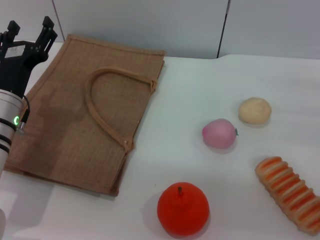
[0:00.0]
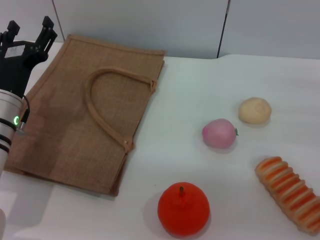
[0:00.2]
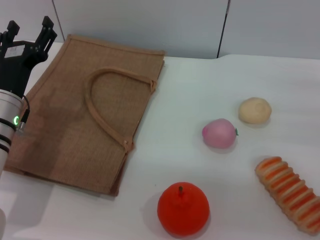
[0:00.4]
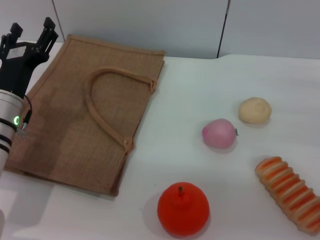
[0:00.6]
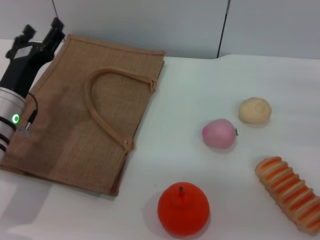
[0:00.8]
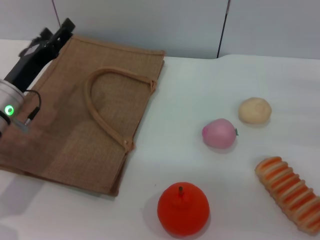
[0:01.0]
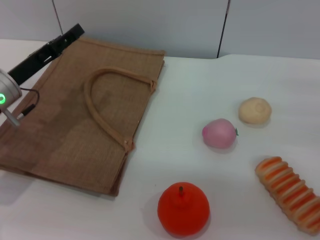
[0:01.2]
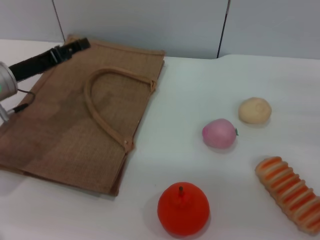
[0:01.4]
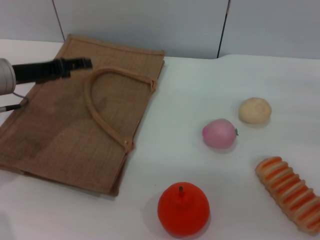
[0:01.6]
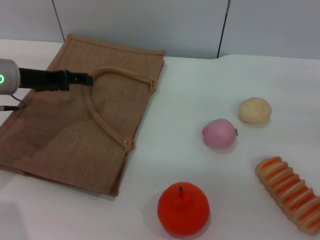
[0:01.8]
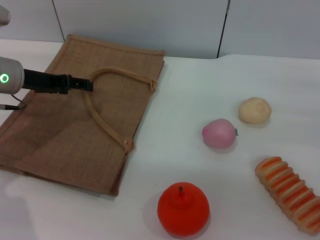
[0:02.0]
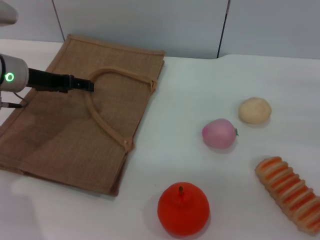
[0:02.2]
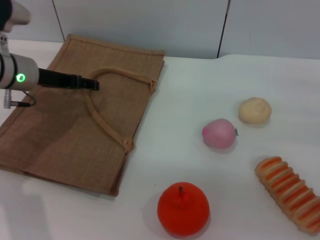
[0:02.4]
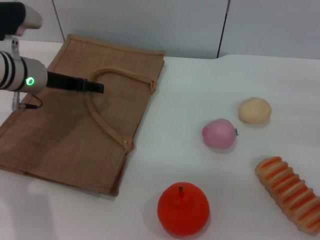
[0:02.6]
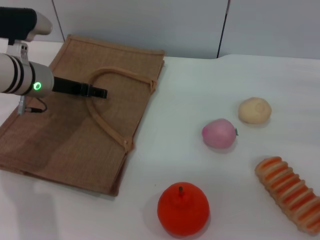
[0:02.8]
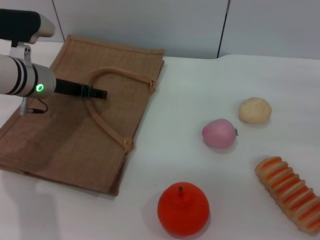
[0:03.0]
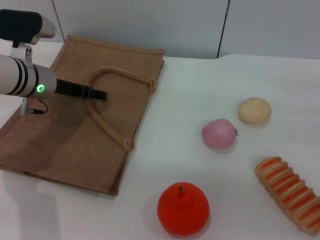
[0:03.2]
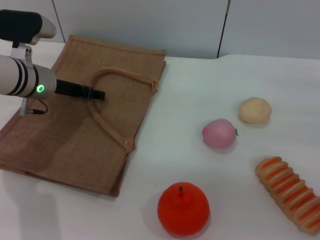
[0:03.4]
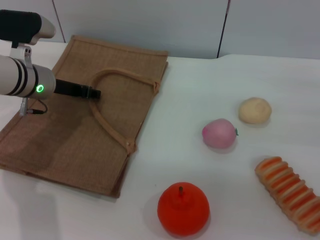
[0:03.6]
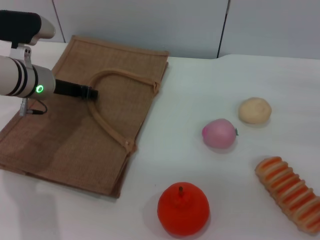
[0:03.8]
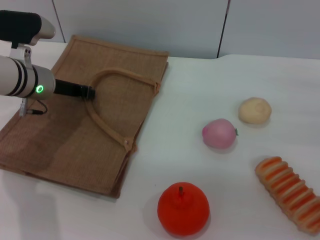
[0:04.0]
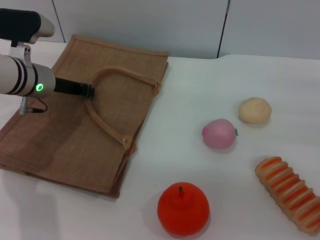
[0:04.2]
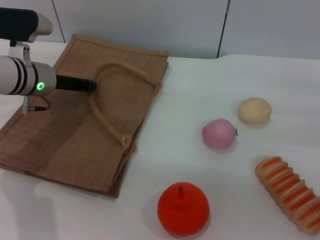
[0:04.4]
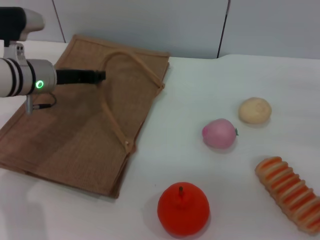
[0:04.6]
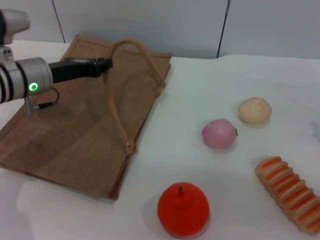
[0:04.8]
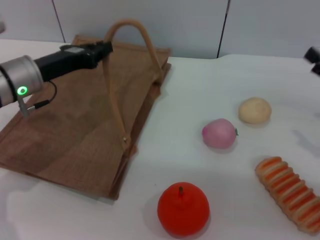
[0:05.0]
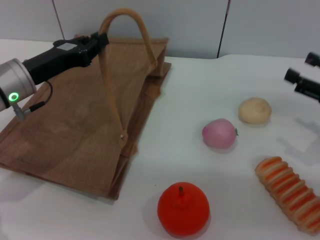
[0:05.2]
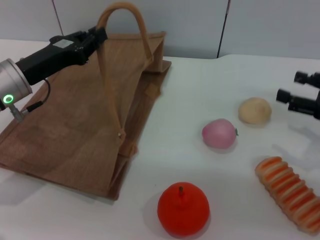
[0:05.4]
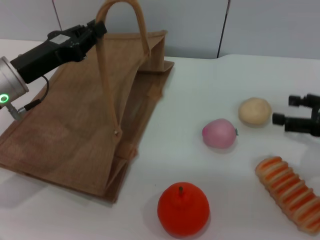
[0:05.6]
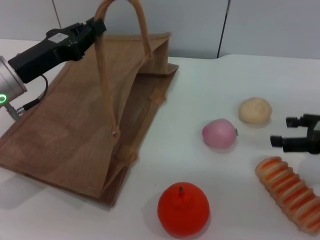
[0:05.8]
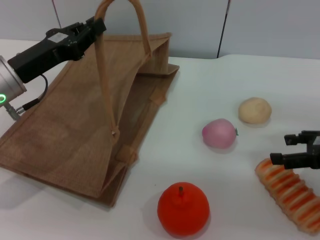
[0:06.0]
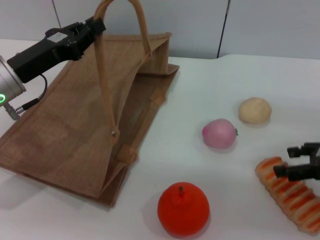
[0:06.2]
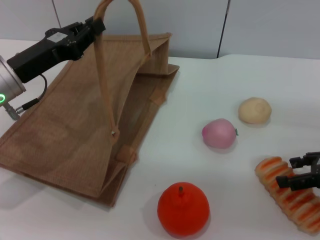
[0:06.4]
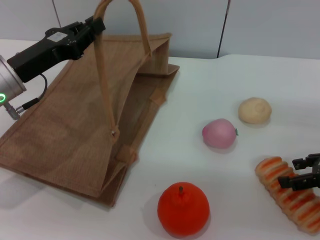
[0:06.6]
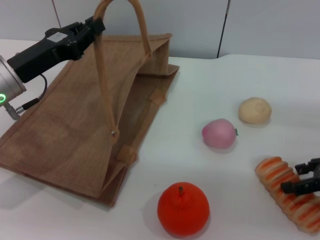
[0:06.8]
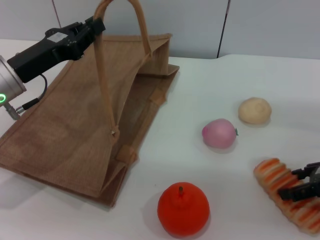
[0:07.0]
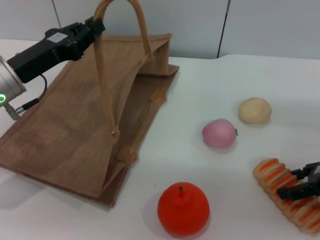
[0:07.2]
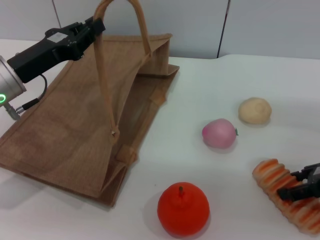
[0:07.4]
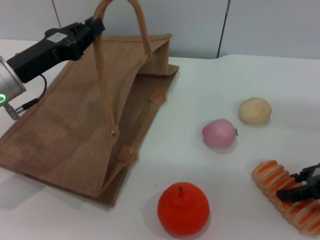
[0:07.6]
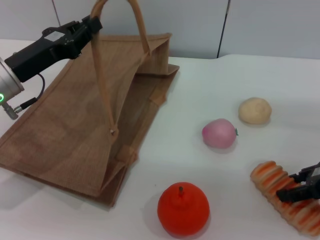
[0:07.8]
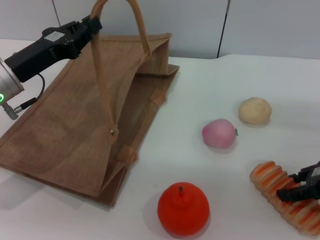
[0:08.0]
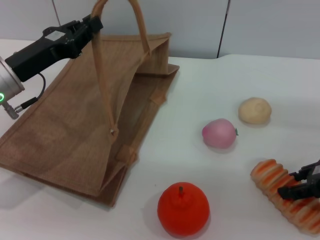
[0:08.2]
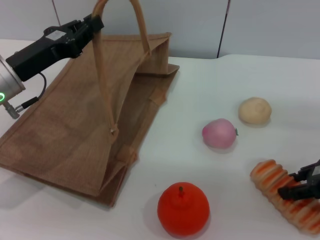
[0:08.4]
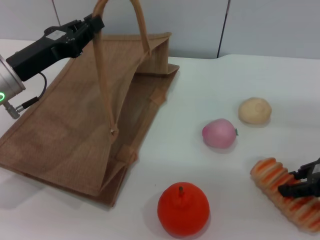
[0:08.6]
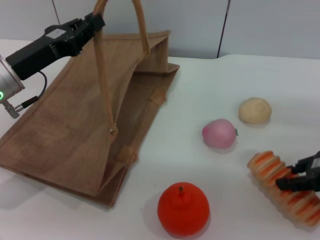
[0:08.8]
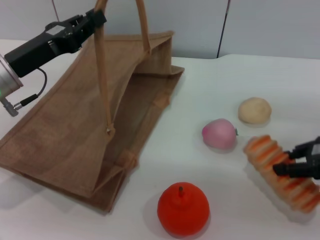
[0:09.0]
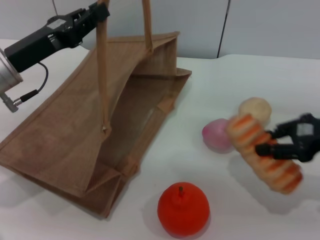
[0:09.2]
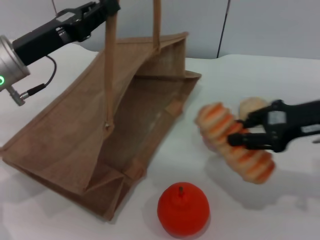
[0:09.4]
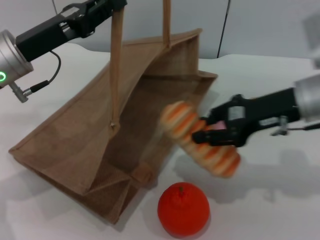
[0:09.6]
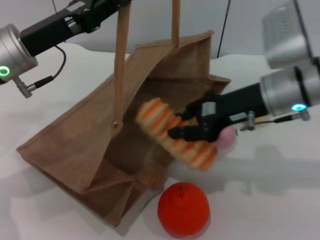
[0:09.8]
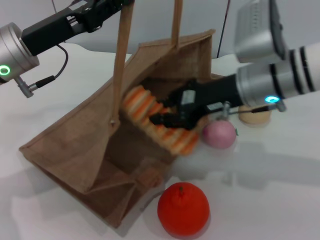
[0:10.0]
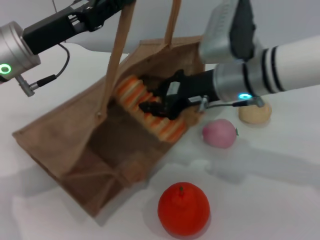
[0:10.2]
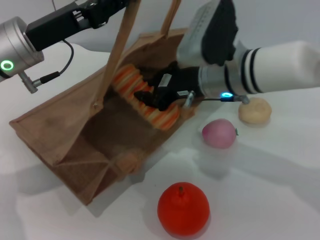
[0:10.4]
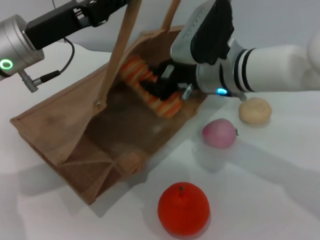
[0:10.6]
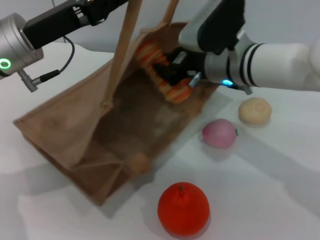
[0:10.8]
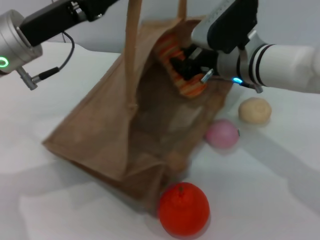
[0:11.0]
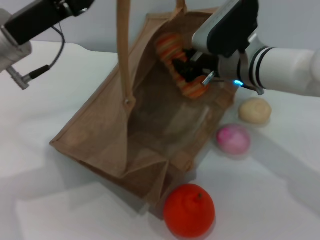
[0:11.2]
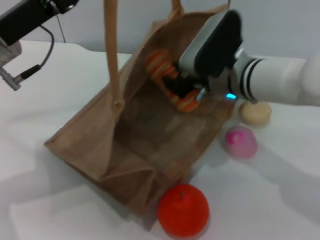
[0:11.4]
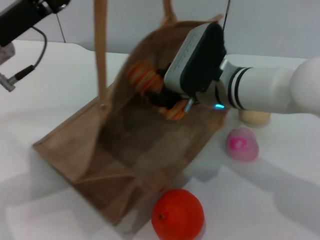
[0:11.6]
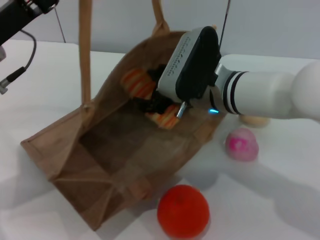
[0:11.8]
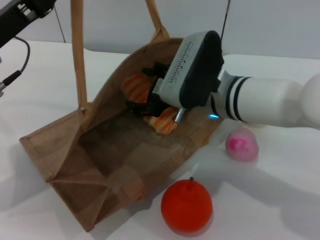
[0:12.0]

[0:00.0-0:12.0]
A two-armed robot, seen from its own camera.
Task of the whole recording: pick up the bread and egg yolk pastry from the table and place it in the brown handbag.
Step, 0:00.0 to 0:05.4: Lift the woven bag with the left gripper to open it.
Step, 0:05.6 to 0:09.2: Pick up the bread with the right gripper.
0:00.0 to 0:01.6: The left gripper is displaced forward and upward by some 10 cm.
0:01.6 to 0:03.0: The left gripper moves to the right, roughly 5 cm.
0:03.0 to 0:04.4: The left gripper closes its fingers.
0:04.4 to 0:06.0: The left gripper travels backward by approximately 10 cm.
0:06.0 to 0:07.6: The grippers move only a little.
0:07.6 to 0:09.0: The right gripper closes up.
0:09.0 to 0:10.4: The right gripper moves to the left, some 25 cm, while the left gripper shifts by some 5 cm.
0:10.4 to 0:12.0: The right gripper opens its fingers. The left gripper ends up roughly 5 cm from where it was.

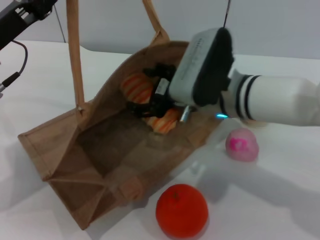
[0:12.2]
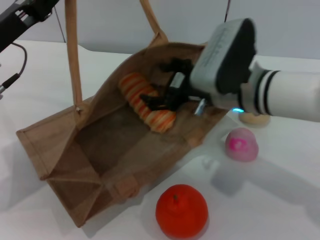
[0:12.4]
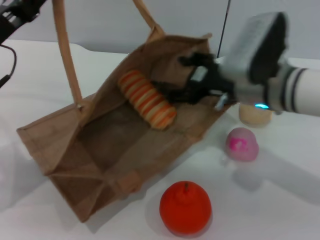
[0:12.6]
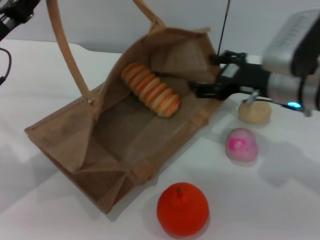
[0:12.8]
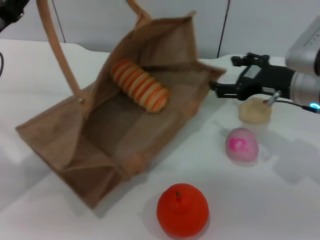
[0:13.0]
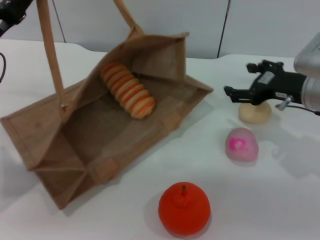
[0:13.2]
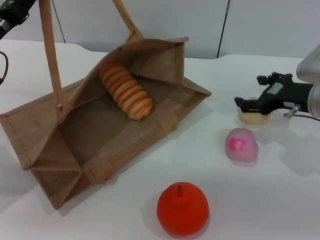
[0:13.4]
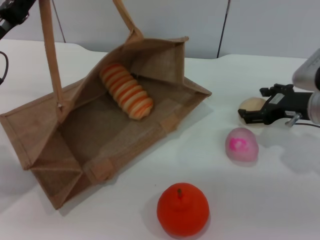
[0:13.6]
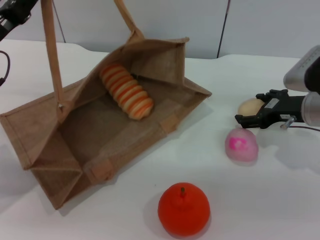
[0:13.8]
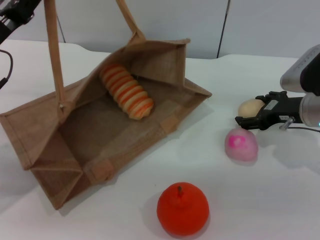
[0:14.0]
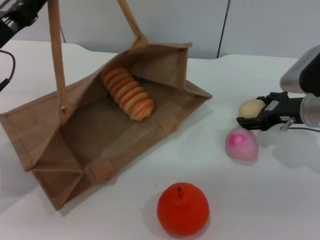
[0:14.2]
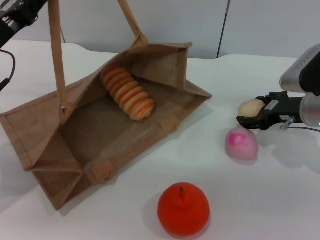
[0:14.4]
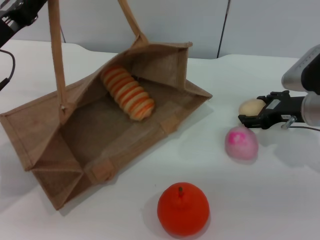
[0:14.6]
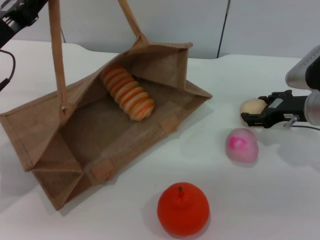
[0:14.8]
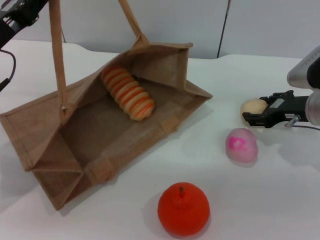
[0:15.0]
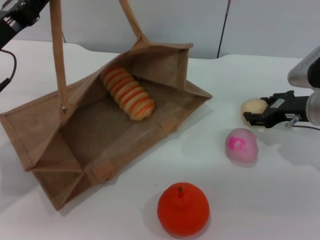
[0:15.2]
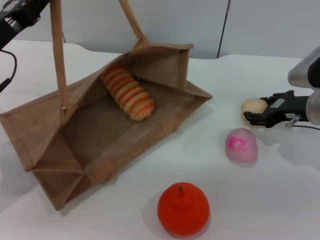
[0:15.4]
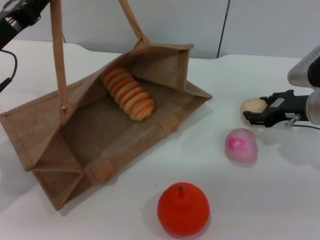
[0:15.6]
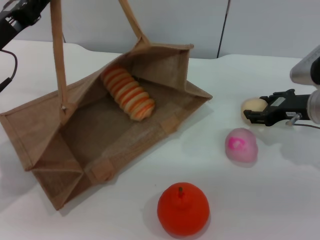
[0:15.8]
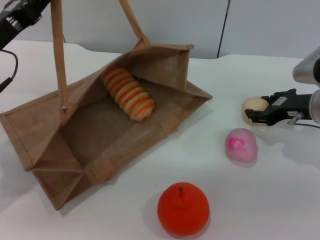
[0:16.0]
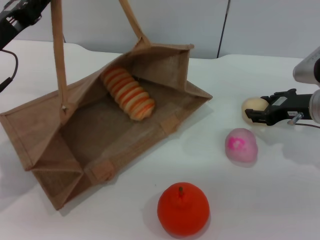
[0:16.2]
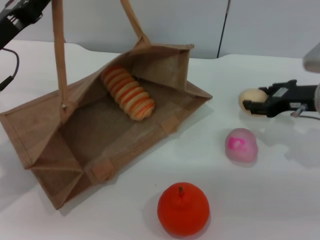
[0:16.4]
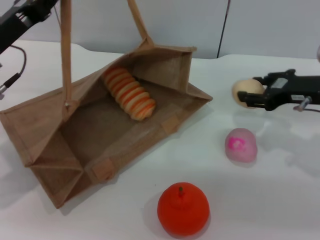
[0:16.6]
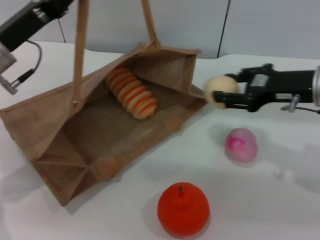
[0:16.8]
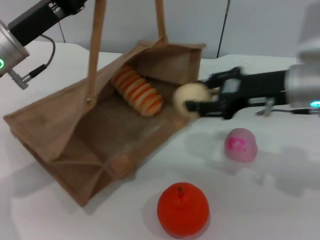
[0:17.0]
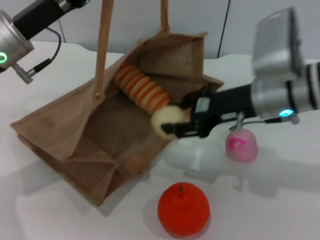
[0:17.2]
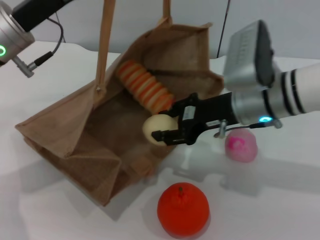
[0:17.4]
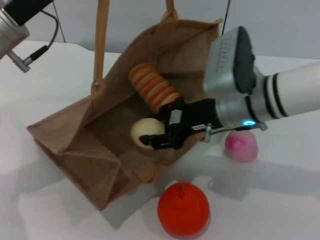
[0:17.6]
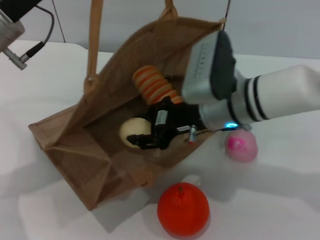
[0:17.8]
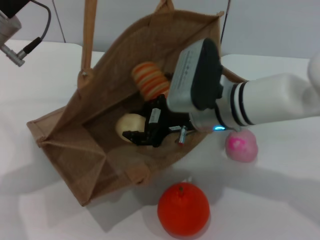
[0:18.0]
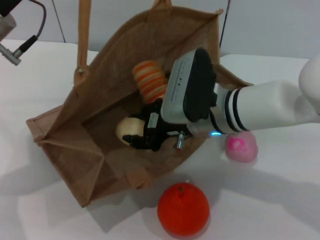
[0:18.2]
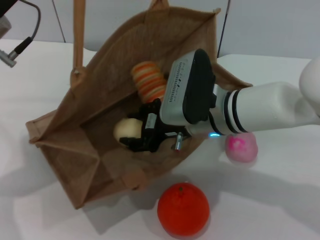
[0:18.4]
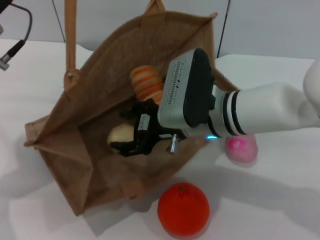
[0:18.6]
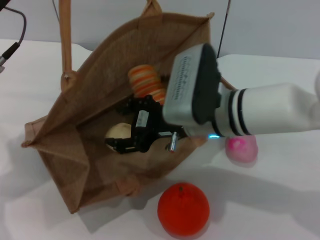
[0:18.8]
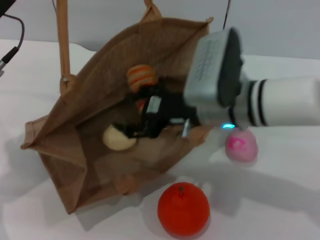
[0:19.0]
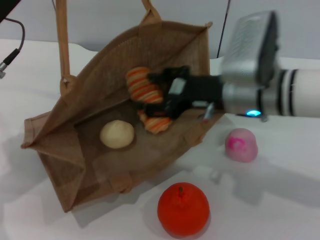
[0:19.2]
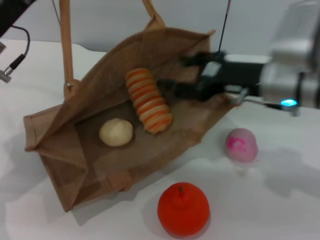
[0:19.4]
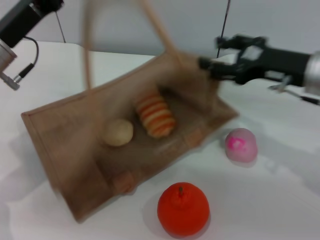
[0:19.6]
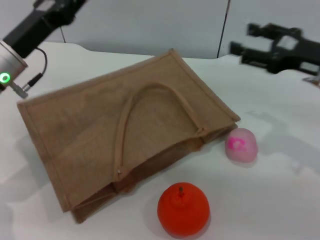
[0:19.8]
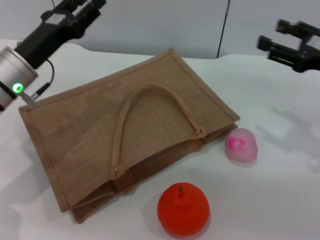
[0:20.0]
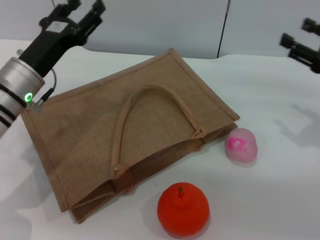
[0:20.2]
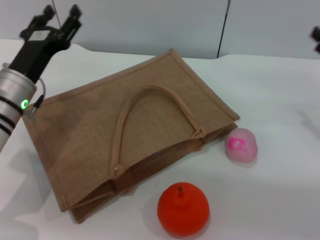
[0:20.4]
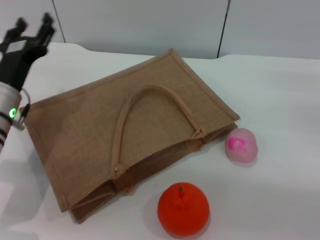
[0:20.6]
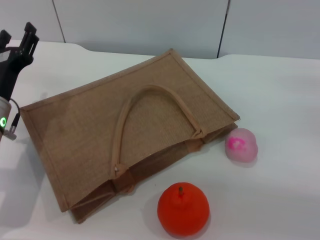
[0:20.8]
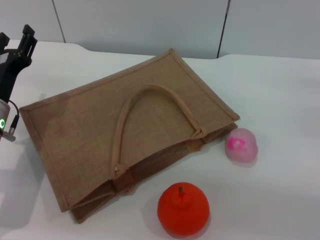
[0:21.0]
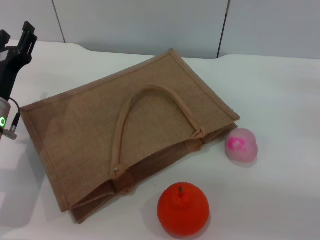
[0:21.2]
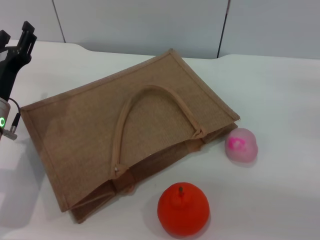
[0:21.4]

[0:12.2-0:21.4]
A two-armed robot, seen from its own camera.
Task of the whole recording: pick up the bread and egg yolk pastry from the table and place it in the brown handbag.
Step, 0:12.8 to 0:16.6: Pick up the egg yolk pastry with the right gripper.
Step, 0:16.8 to 0:19.0: Place the egg yolk pastry into the woven bag with the right gripper.
Step, 0:19.4 to 0:20.0: Lower the woven bag with the left gripper to close it.
0:12.2 to 0:13.8: The right gripper moves to the right, some 15 cm.
0:13.8 to 0:15.2: The right gripper closes.
0:15.2 to 0:16.8: The right gripper moves upward, roughly 5 cm.
0:16.8 to 0:18.4: The right gripper travels to the left by roughly 15 cm.
0:18.4 to 0:19.8: The right gripper is displaced to the right by approximately 20 cm, and opens up. The left gripper goes roughly 5 cm downward.
0:19.8 to 0:21.4: The right gripper heads to the right and downward, covering approximately 15 cm. Meanwhile the left gripper travels downward by some 10 cm, and opens up.
